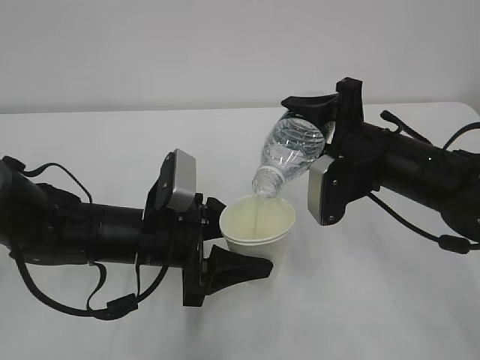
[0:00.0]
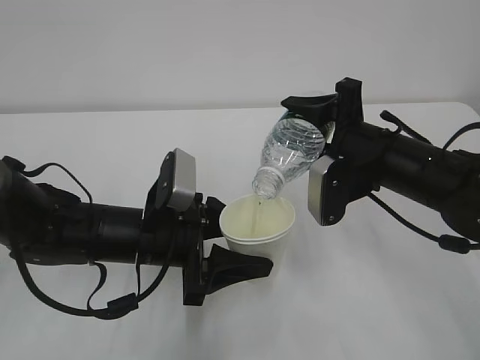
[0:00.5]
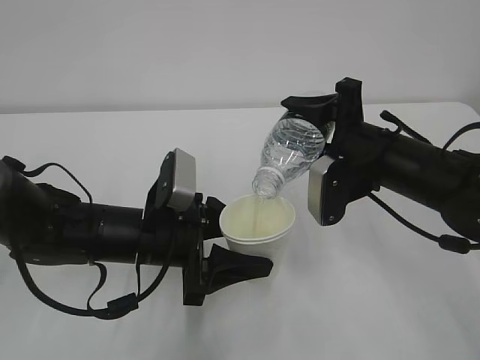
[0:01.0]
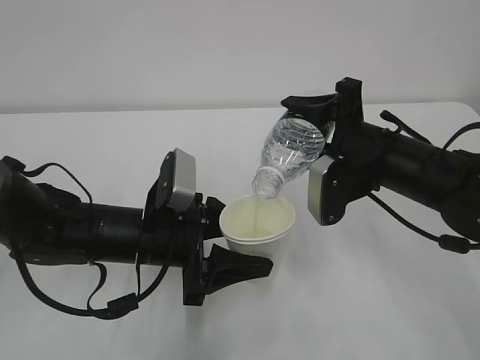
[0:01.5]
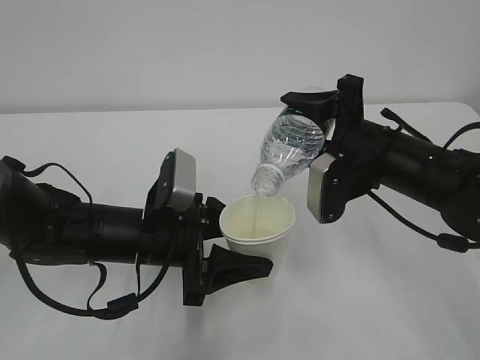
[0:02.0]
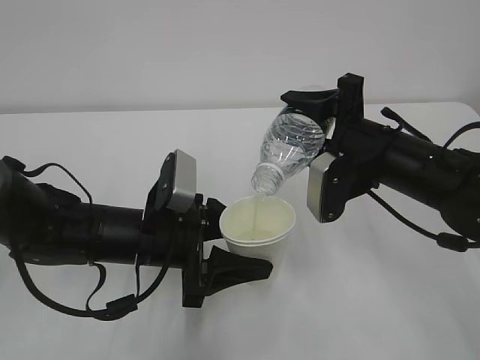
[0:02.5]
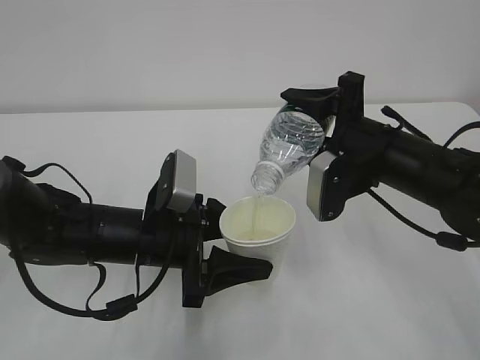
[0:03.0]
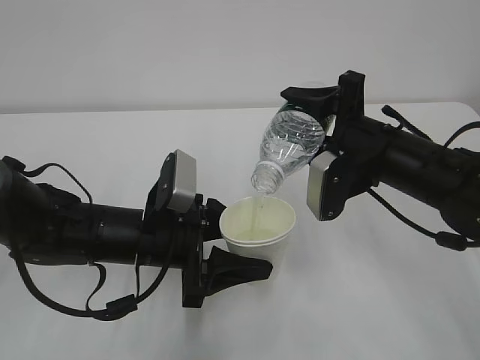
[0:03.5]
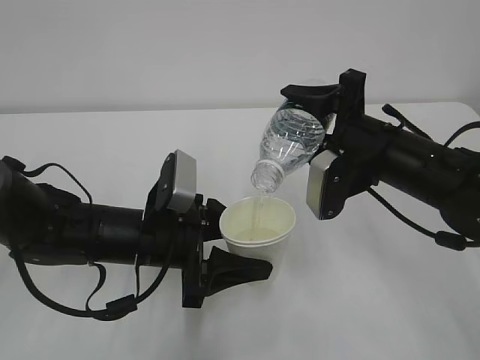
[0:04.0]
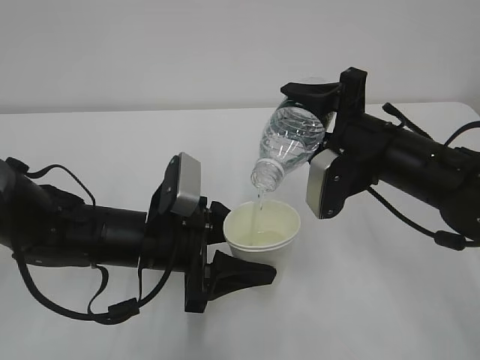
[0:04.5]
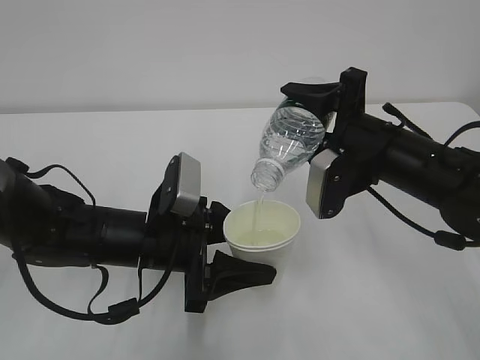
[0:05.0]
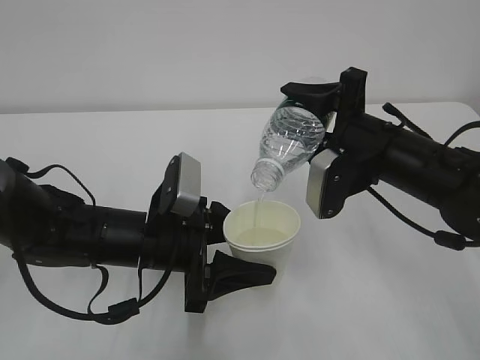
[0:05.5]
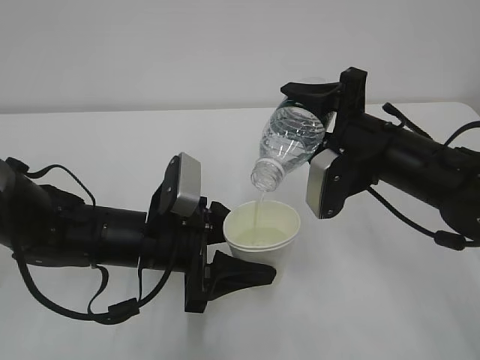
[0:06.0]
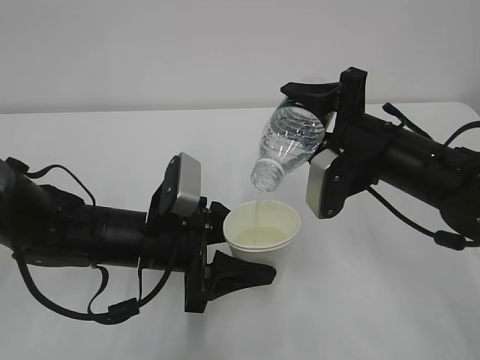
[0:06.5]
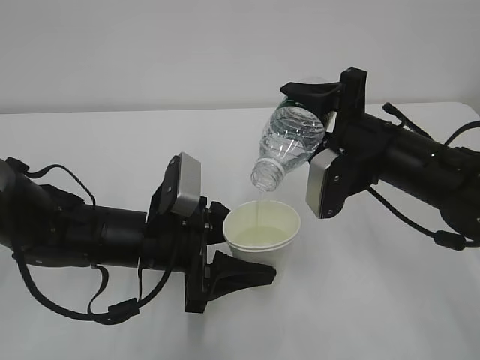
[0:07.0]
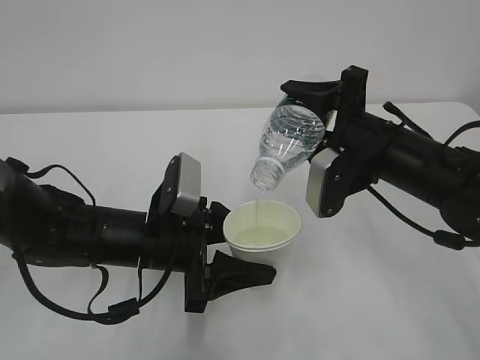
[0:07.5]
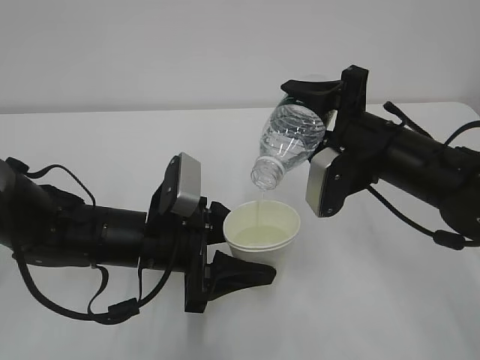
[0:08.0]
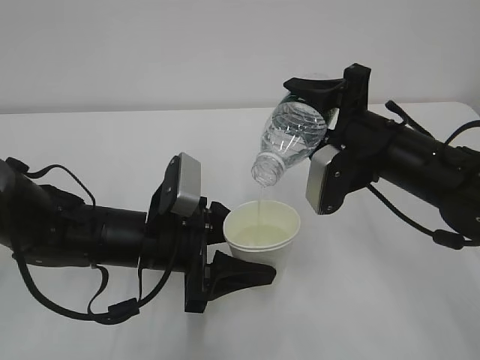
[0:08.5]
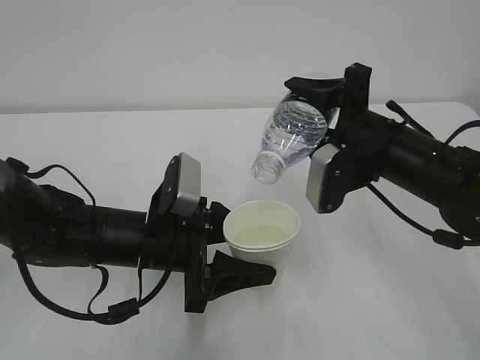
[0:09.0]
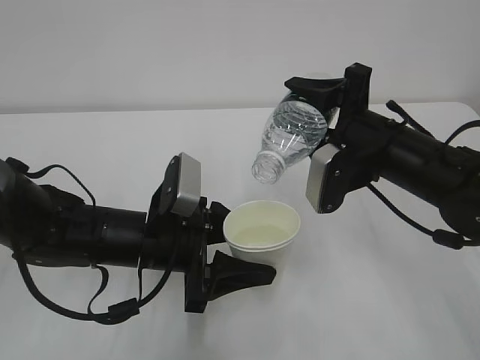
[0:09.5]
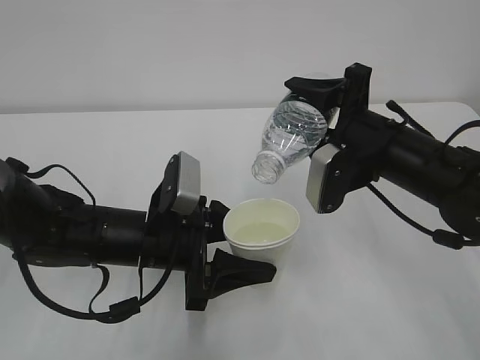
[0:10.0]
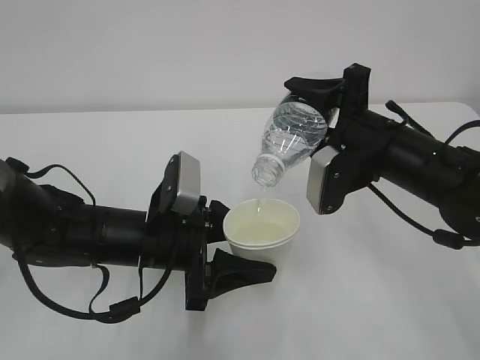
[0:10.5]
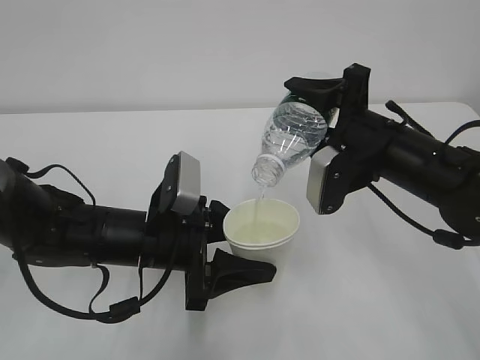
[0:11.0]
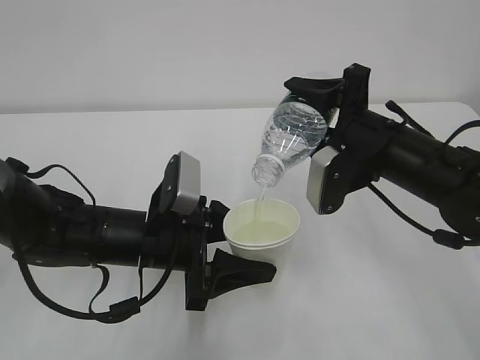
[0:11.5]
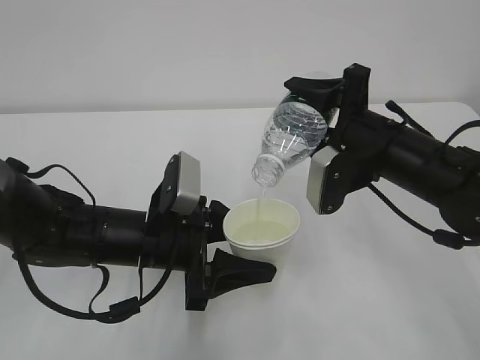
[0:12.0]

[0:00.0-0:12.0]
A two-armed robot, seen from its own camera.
0:00.0 to 0:04.0: Both grippers stay about where they are.
0:04.0 to 0:12.0: Both grippers stay about where they are.

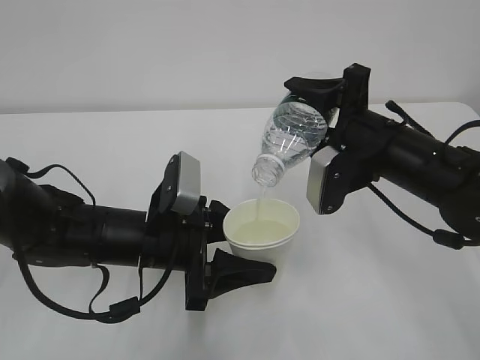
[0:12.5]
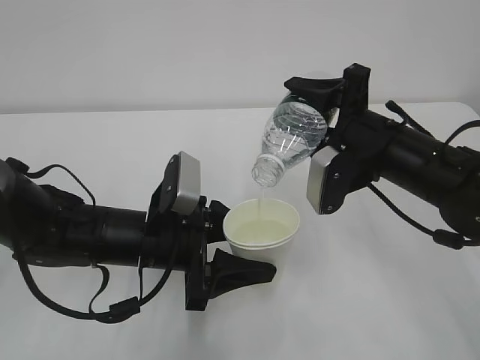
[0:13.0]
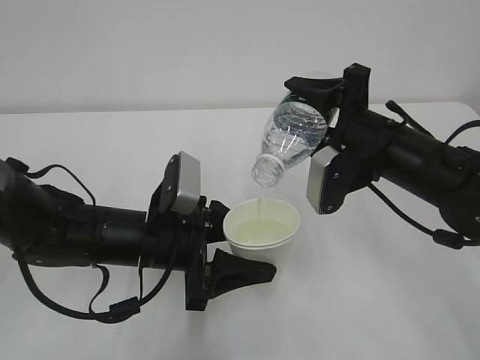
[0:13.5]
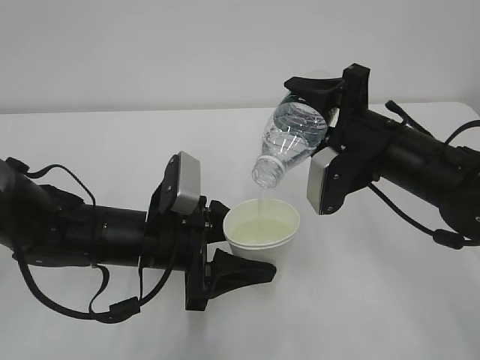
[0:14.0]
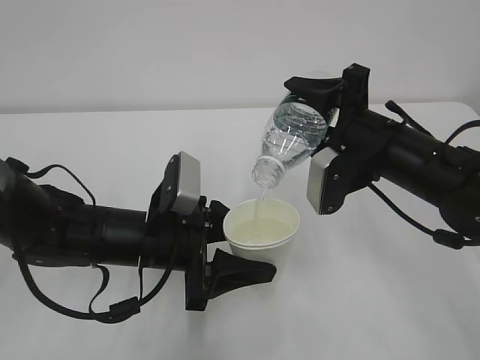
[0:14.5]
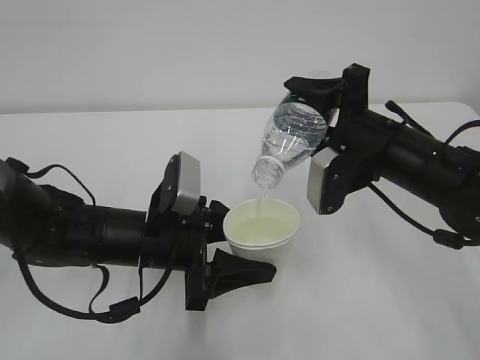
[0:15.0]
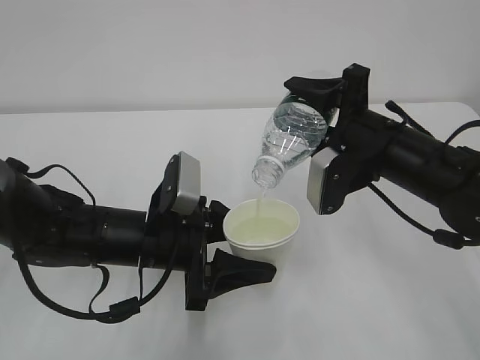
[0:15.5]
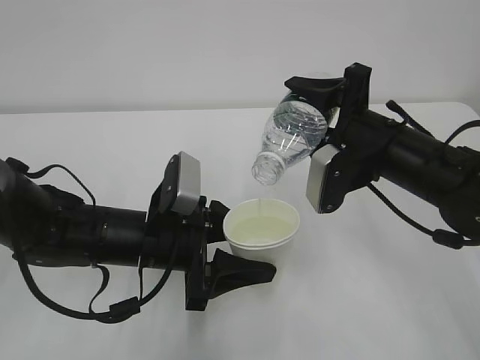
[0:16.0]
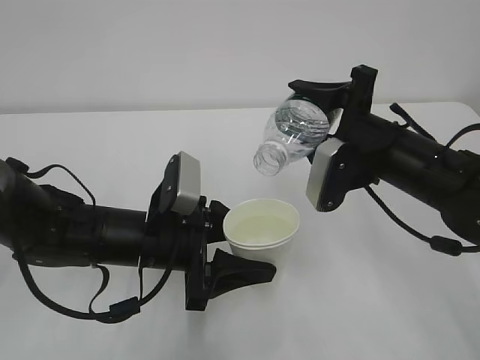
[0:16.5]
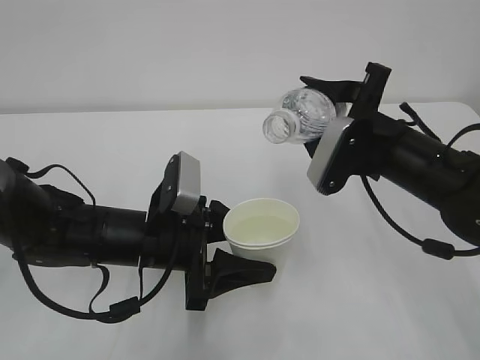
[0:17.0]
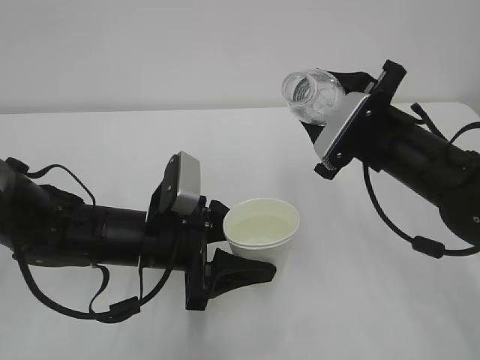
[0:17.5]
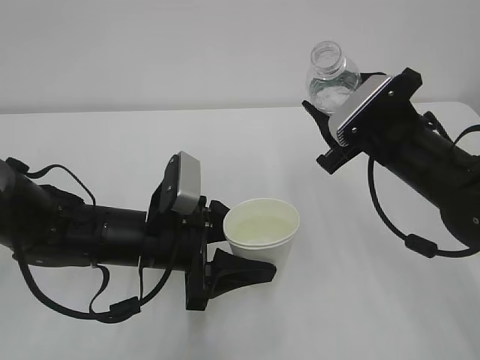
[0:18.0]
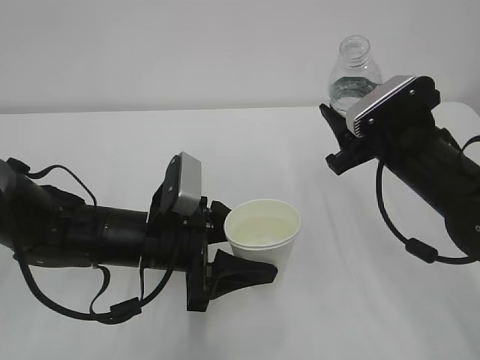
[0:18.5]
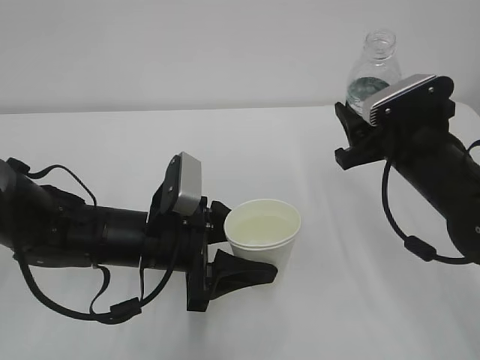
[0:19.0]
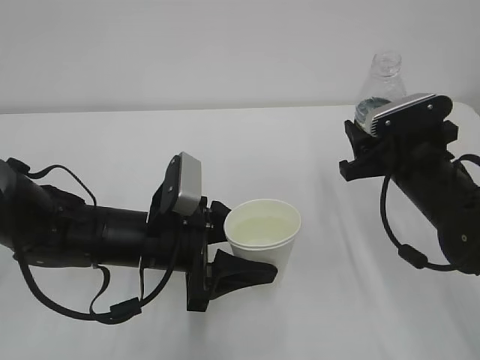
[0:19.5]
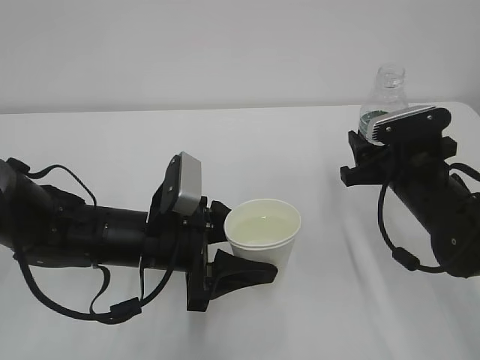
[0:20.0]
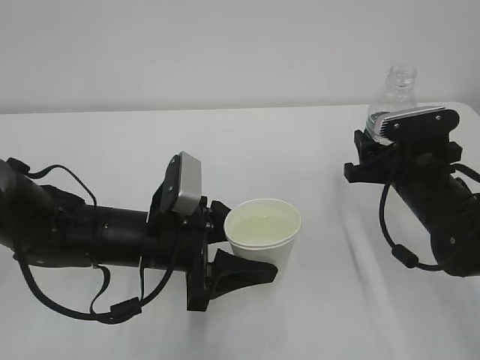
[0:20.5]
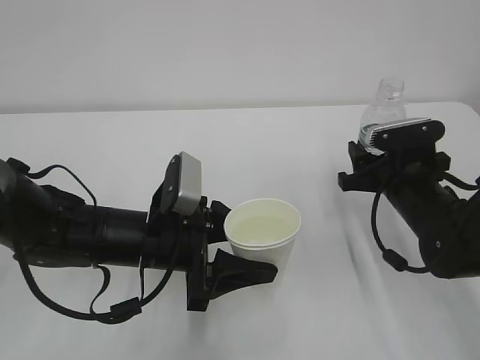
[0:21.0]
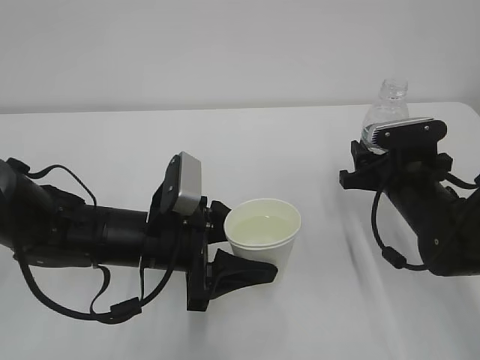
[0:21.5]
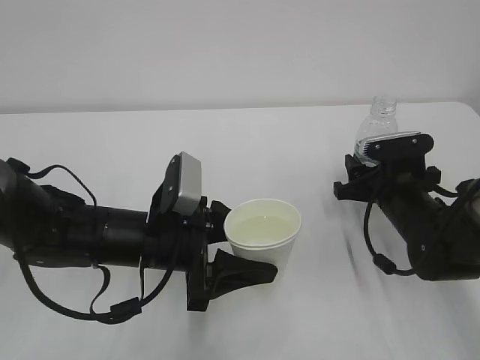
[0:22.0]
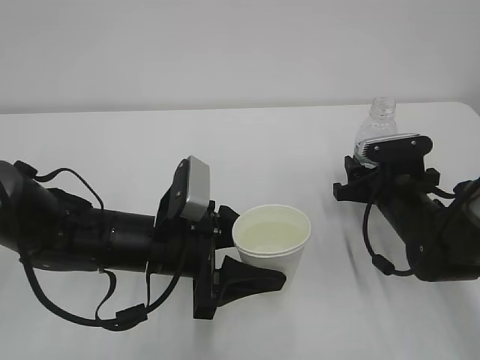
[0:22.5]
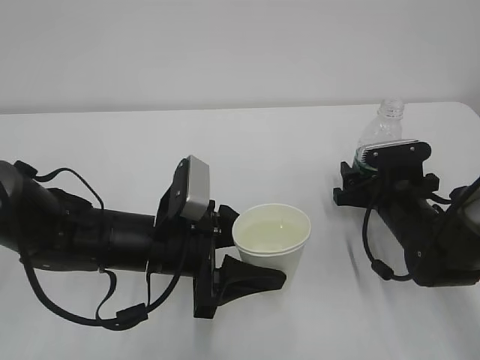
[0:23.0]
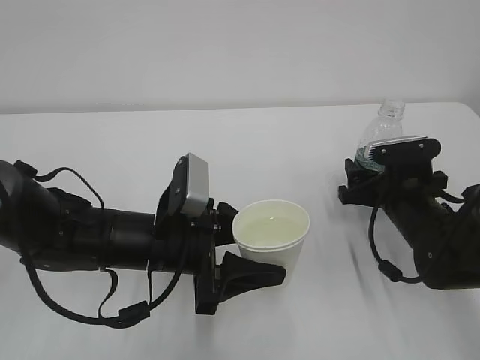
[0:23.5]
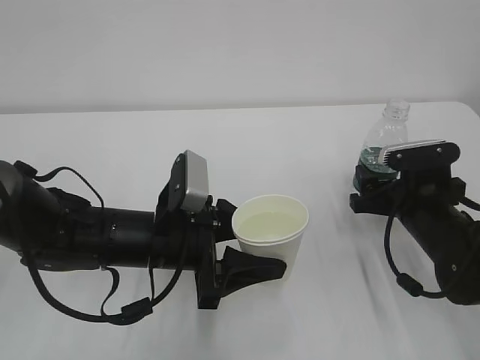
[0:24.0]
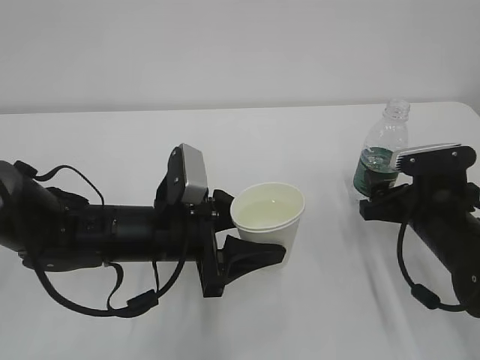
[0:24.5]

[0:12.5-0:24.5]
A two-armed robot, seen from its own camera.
0:12.5 to 0:14.5: Both grippers stay put.
0:14.5 to 0:16.5: The grippers move only a little.
0:18.5 to 0:20.5: The right gripper is displaced downward by approximately 5 cm.
0:20.5 to 0:22.5: The right gripper travels downward by approximately 5 cm.
0:22.5 to 0:24.5: The right gripper shifts some 5 cm backward, and opens up.

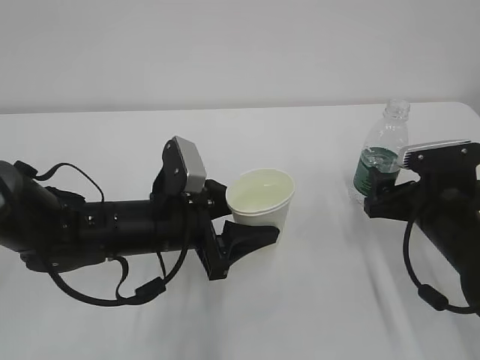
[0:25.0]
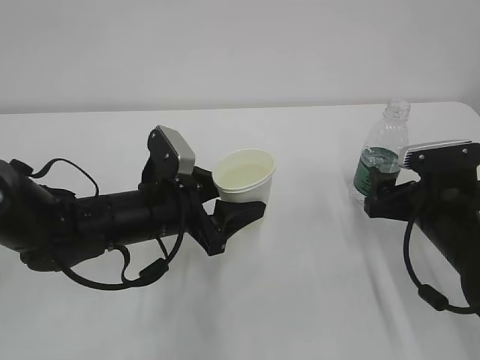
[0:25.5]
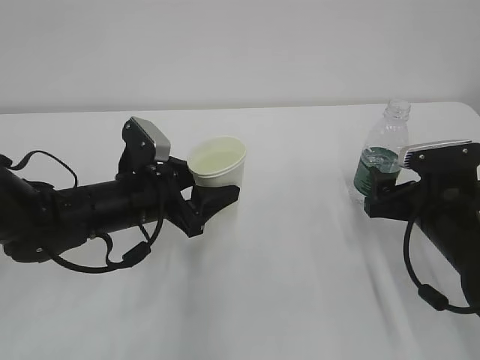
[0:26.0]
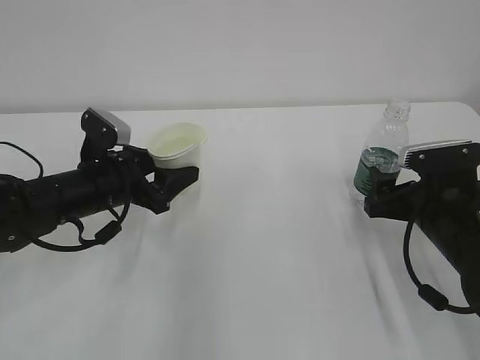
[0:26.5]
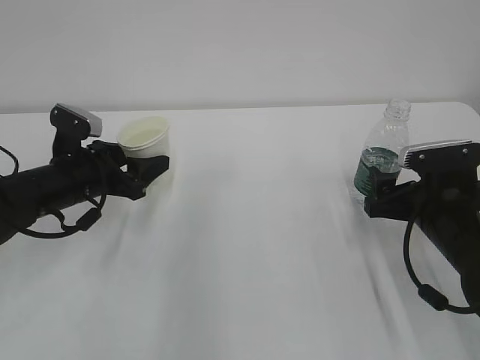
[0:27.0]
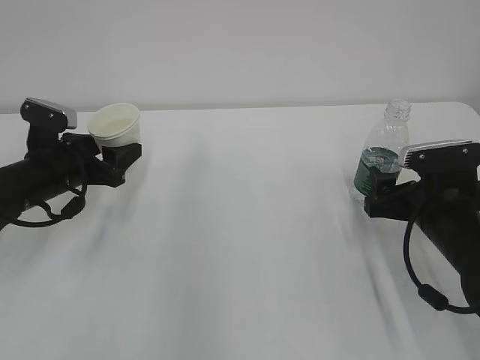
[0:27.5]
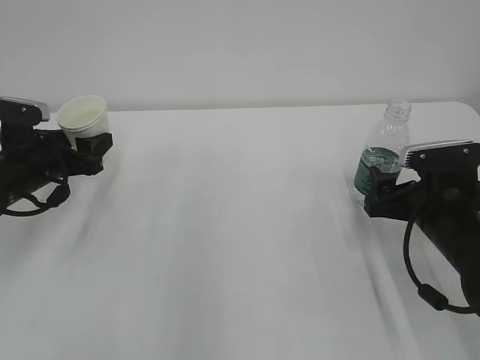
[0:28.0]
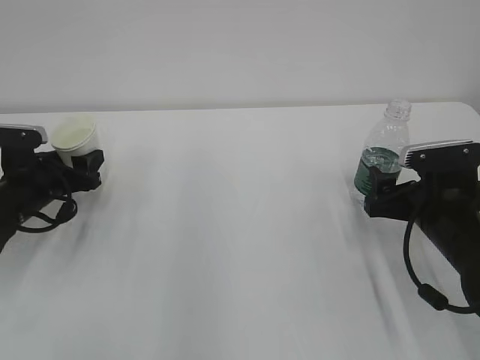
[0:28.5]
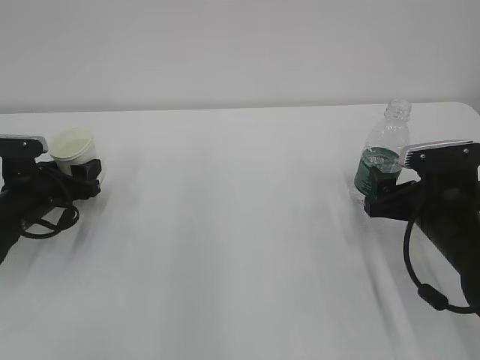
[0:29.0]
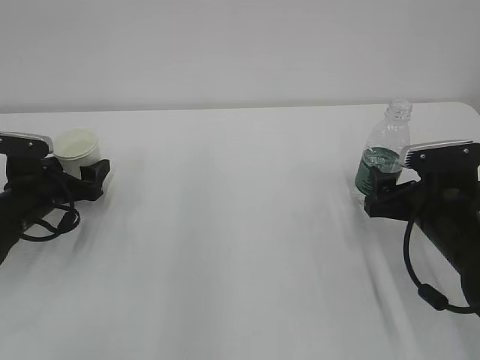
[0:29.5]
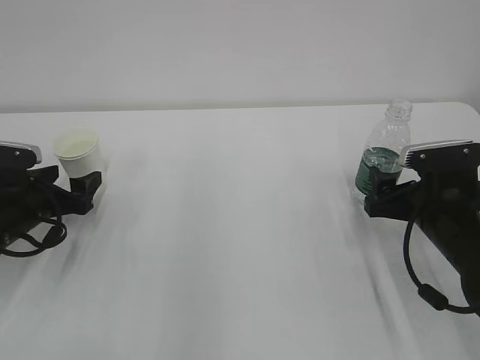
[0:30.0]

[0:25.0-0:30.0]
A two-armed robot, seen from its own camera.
0:25.0 to 0:27.5: The left gripper travels to the left and forward by roughly 15 cm.
0:27.5 to 0:30.0: The left gripper shifts by some 5 cm, and opens its fingers.
